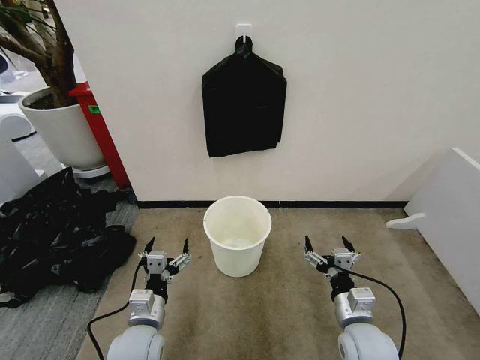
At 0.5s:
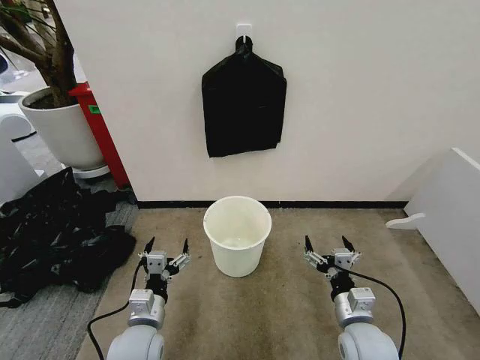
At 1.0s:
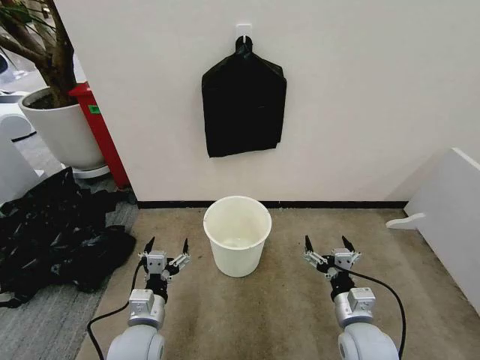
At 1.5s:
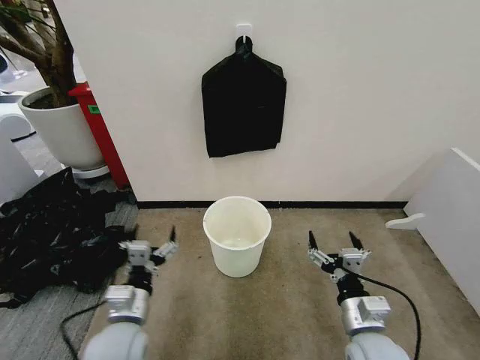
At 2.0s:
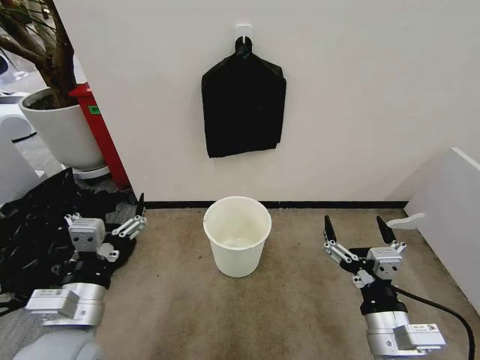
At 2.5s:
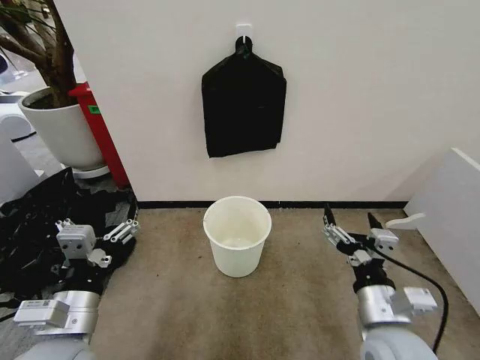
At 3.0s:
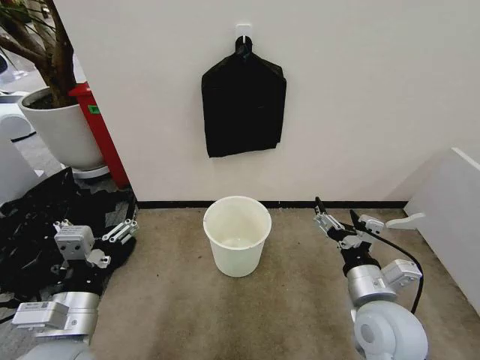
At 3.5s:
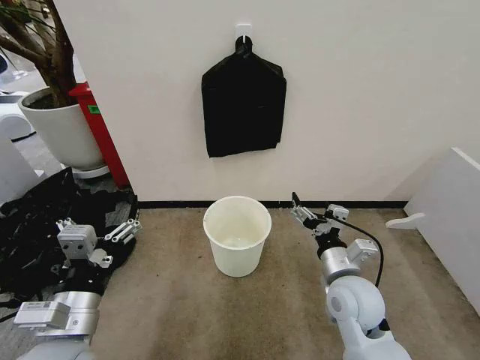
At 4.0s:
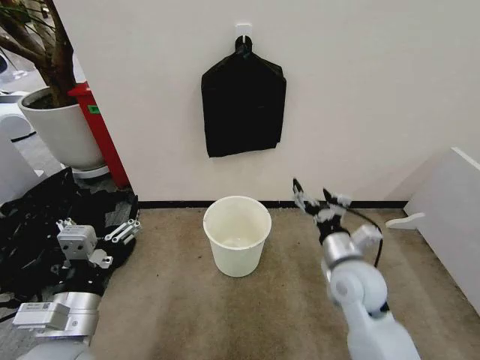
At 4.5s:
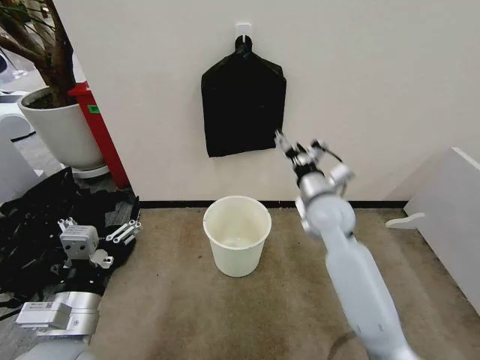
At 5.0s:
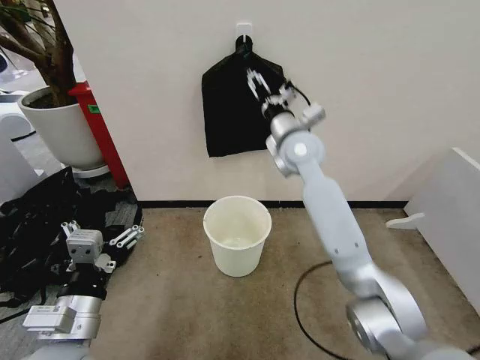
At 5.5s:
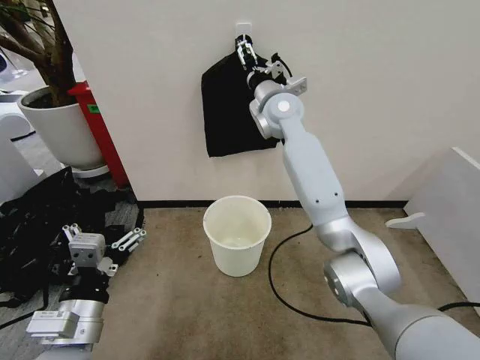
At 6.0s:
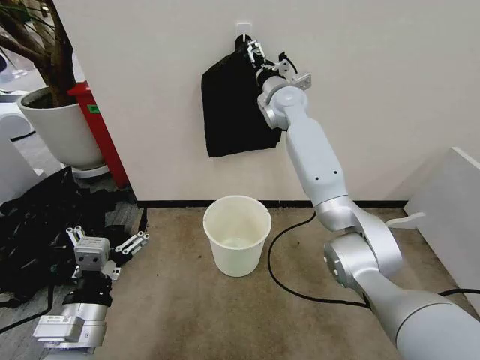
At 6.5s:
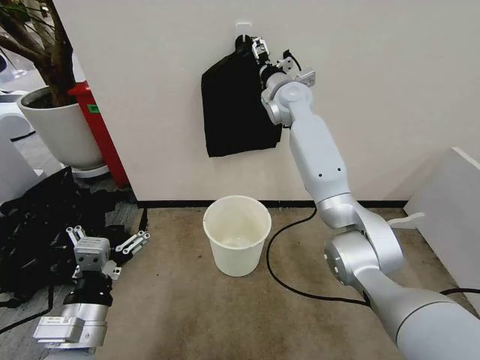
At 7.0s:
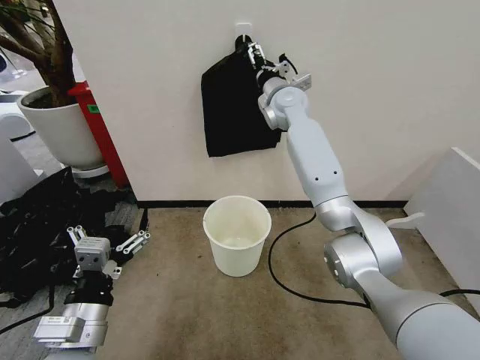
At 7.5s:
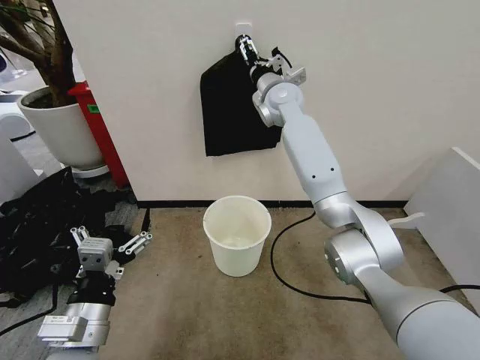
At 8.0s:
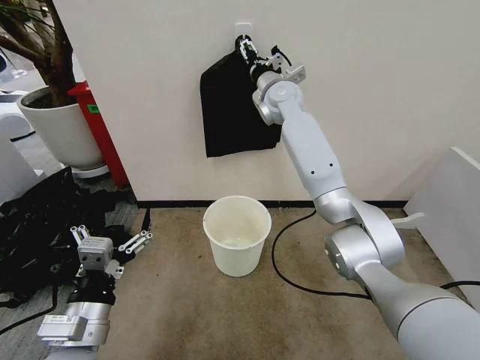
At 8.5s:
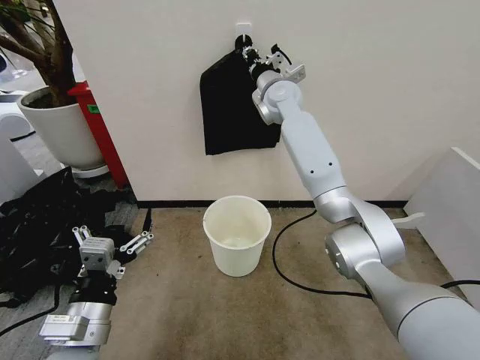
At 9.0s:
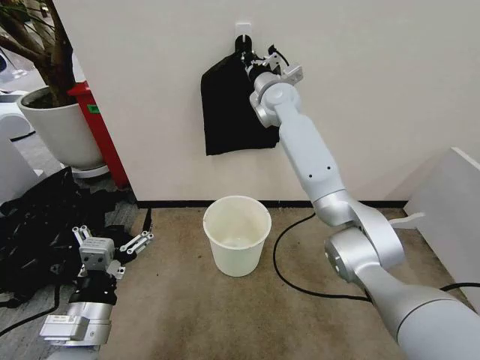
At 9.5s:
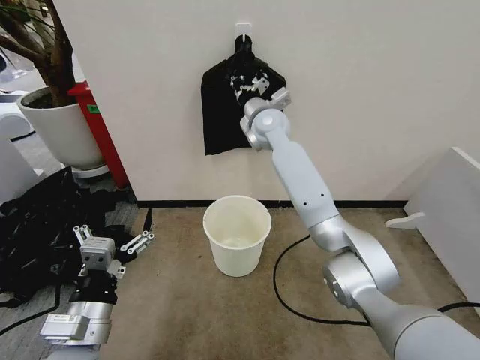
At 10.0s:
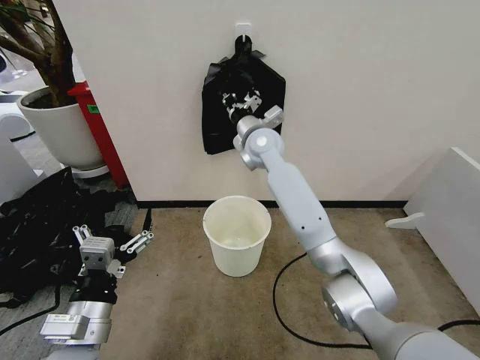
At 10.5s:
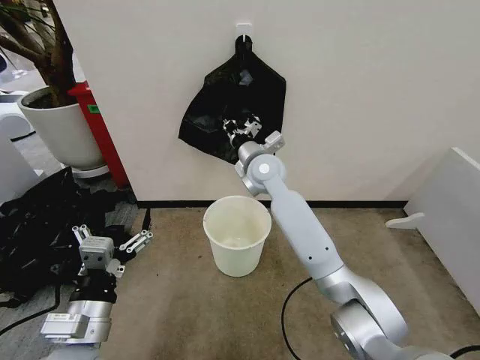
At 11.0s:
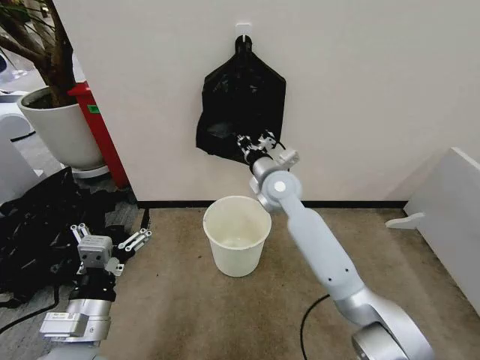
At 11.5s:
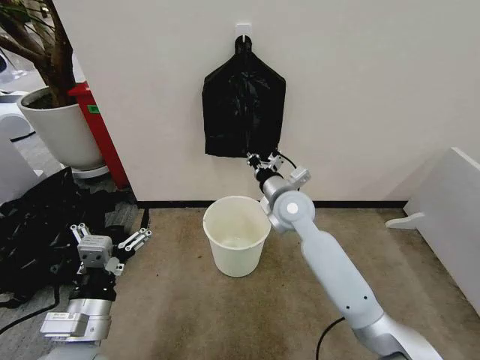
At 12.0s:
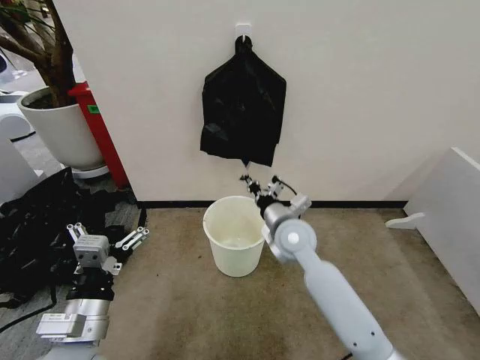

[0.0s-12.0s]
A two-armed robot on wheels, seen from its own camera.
Task of the whole recording: Place the garbage bag over the trash bin.
2.0s to 4.0s: The right gripper goes about 15 cm forward.
4.0s to 6.0s: The right gripper goes about 40 cm forward and upward.
6.0s to 8.0s: The grippers stay close to where they were, moving slightly.
8.0s to 10.0s: The right gripper shifts approximately 10 cm downward and backward, and closes up.
10.0s to 12.0s: The right gripper heads backward, downward and to the right, covering some 20 cm.

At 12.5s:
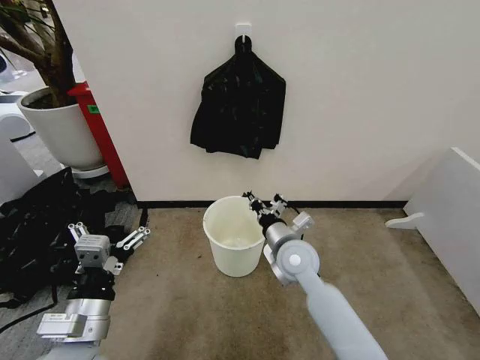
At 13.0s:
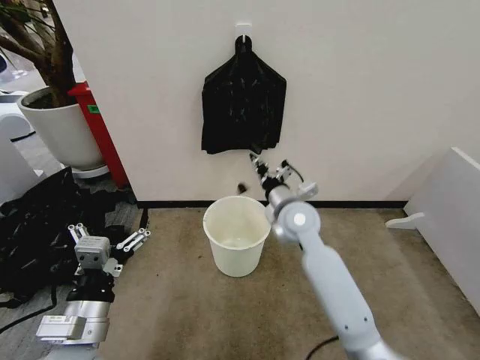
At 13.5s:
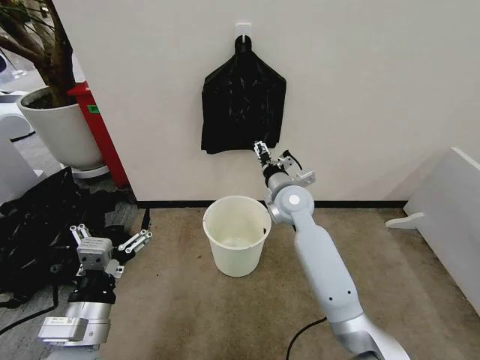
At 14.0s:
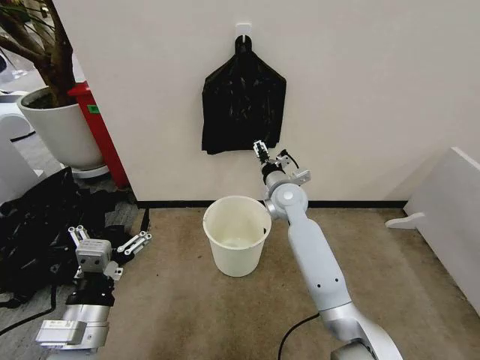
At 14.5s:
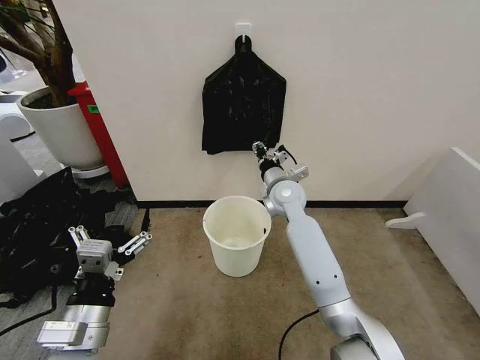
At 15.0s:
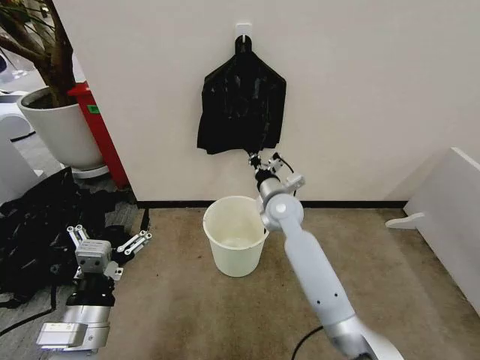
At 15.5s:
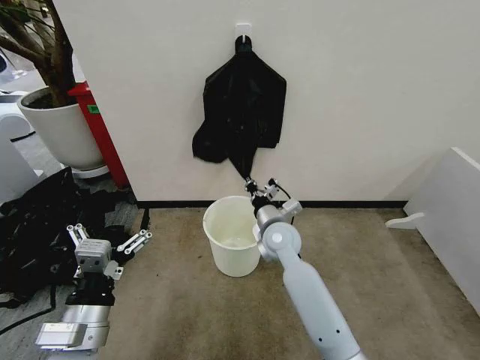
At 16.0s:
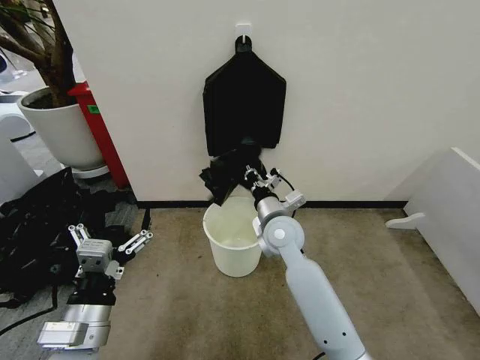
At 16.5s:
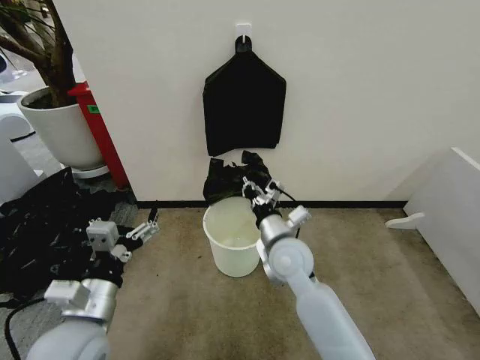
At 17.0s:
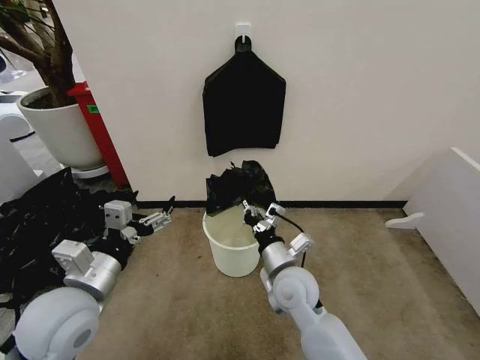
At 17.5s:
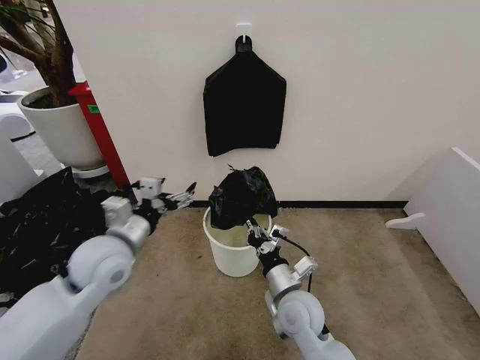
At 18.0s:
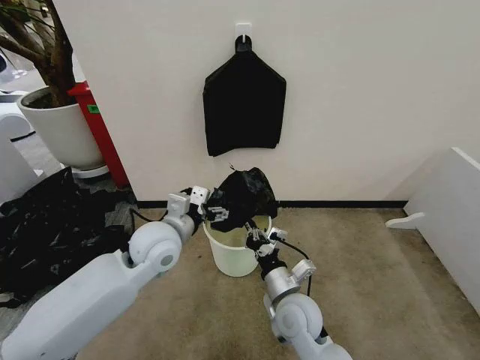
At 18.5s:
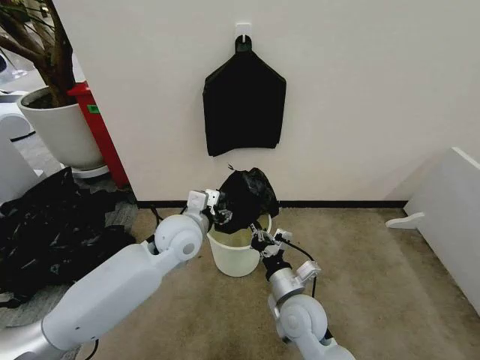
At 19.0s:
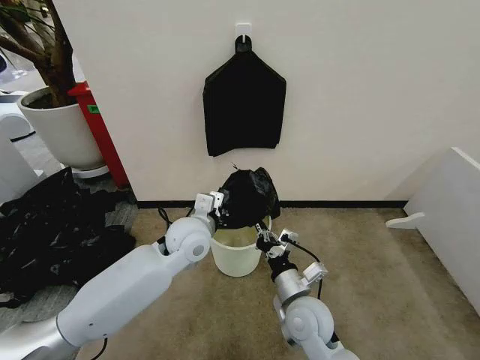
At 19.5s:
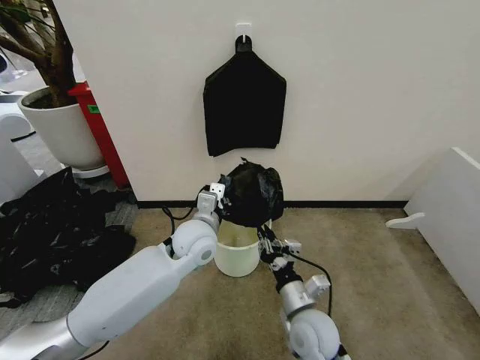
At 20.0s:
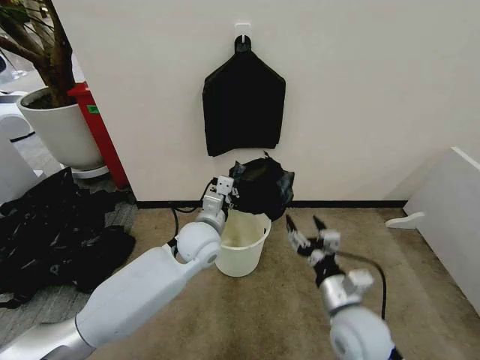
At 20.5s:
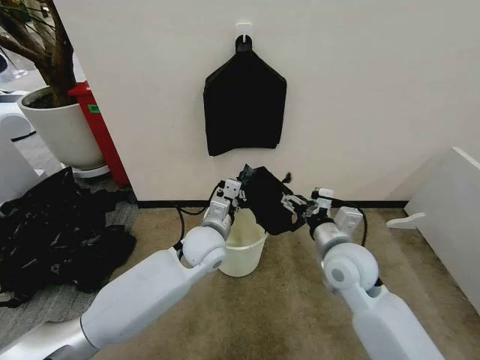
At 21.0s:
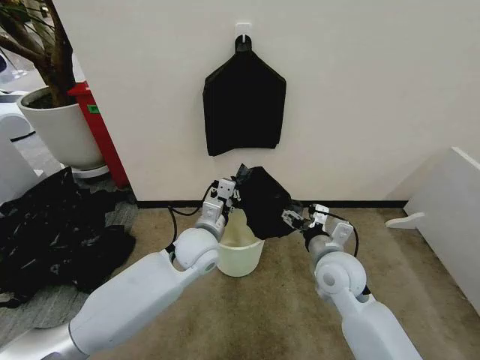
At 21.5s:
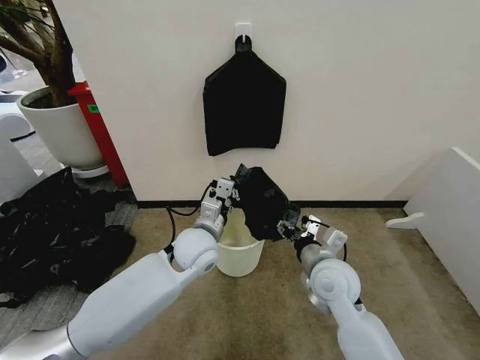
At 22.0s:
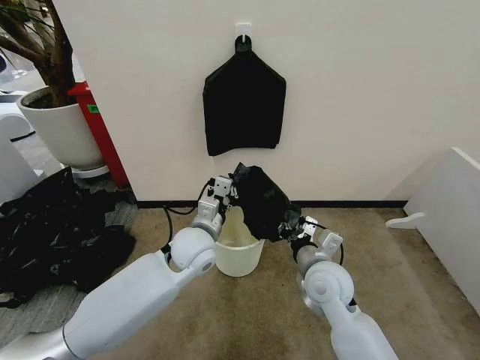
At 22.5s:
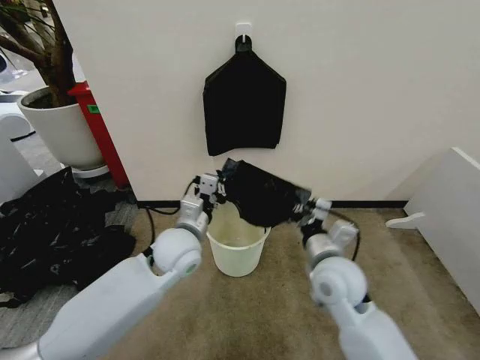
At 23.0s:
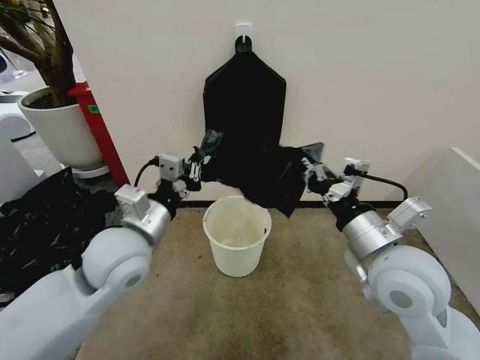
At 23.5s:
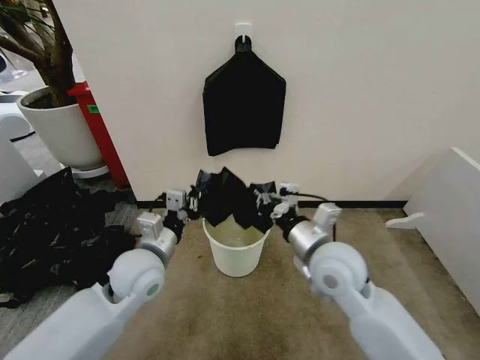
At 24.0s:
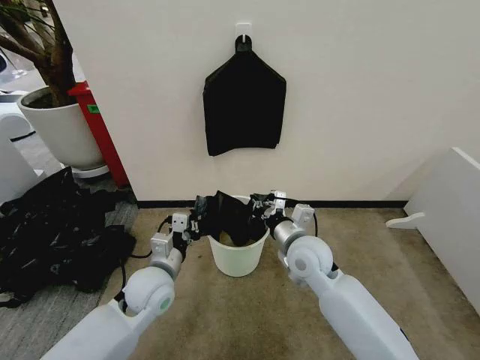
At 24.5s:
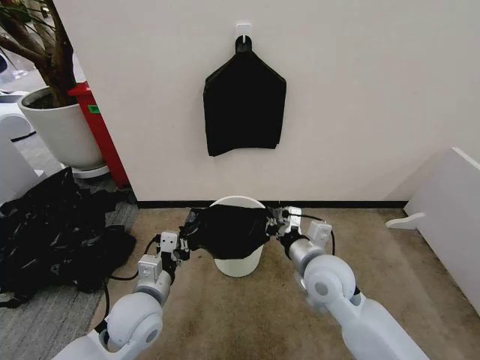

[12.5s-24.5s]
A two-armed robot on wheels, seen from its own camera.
Task of the whole recording: Place the garbage bag over the trash bin.
12.5s to 14.5s: The right gripper goes some 15 cm forward and upward, and opens, then closes once more.
14.5s to 16.5s: The right gripper shifts about 15 cm backward.
16.5s to 18.5s: The left gripper is displaced forward and to the right by roughly 25 cm, and closes up. Meanwhile the right gripper moves backward and downward, some 15 cm.
18.5s to 20.5s: The left gripper ends up about 5 cm from where it was, and closes. The right gripper moves upward, to the right and forward, approximately 15 cm, and opens its fingers.
20.5s to 22.5s: The right gripper closes, while the left gripper shifts by roughly 5 cm.
22.5s to 24.5s: The left gripper heads backward, to the left and downward, covering some 15 cm. The right gripper moves approximately 10 cm upward and comes back.

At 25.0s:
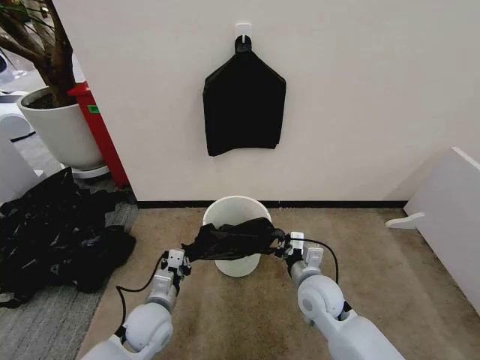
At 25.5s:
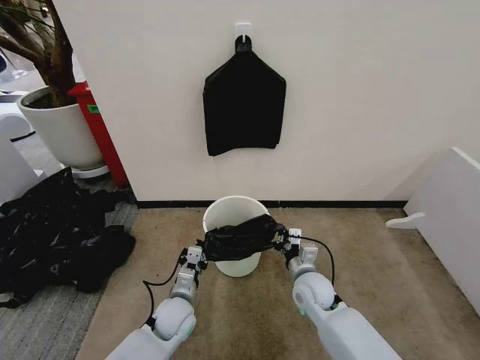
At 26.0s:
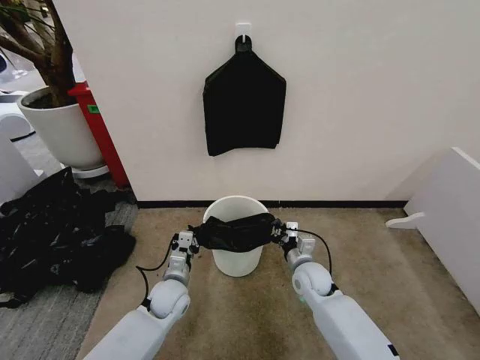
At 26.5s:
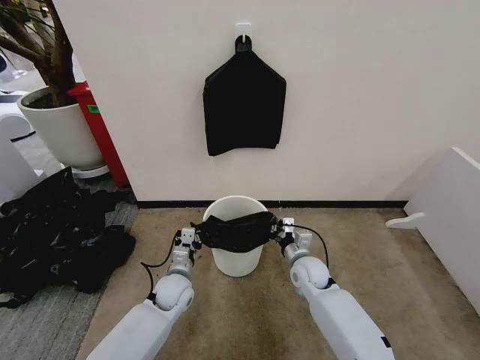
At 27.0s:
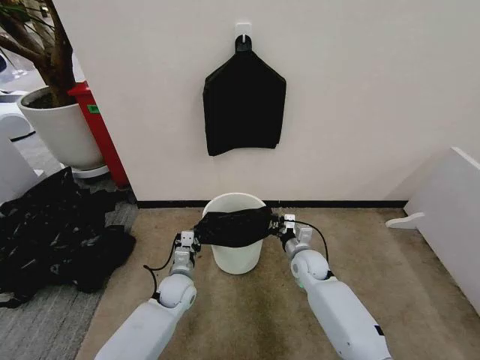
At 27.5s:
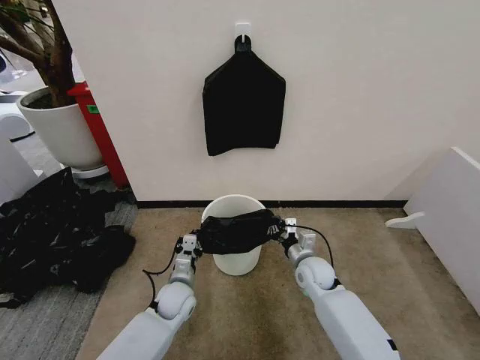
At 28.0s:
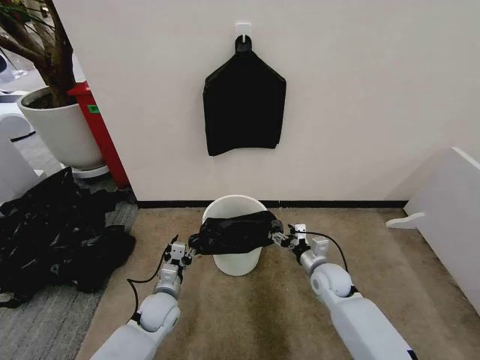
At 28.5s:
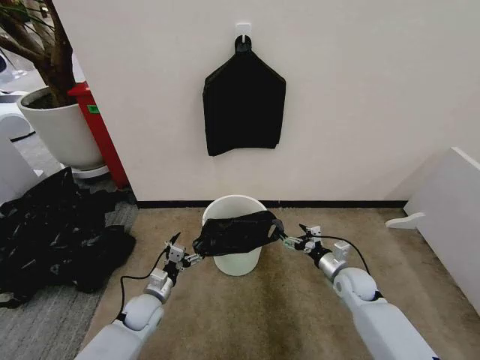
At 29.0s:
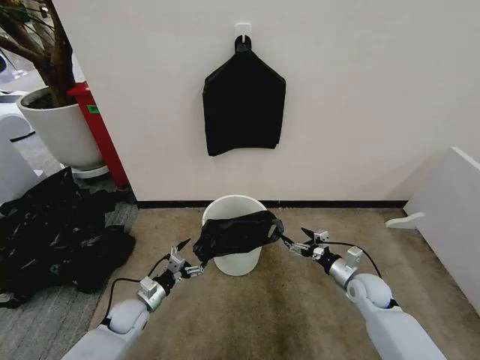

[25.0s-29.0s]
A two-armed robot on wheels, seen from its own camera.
Task of the whole recording: Place the garbage bag over the trash bin.
25.0s to 27.0s: The grippers both shift forward and downward by roughly 15 cm.
27.0s to 29.0s: The left gripper travels to the left and backward by some 15 cm, and opens. The right gripper shifts about 15 cm to the right and backward, and opens its fingers.
